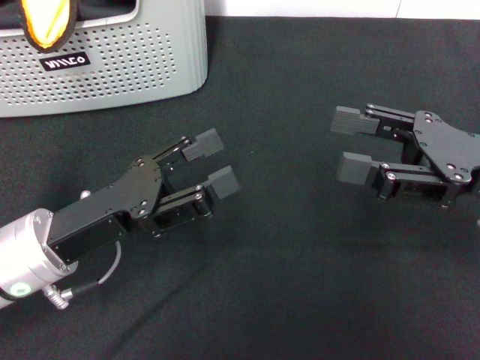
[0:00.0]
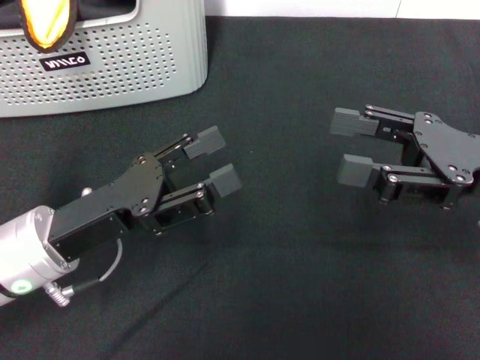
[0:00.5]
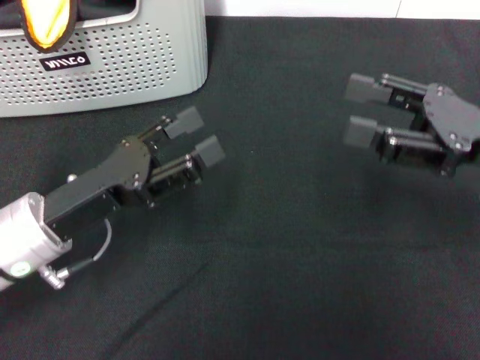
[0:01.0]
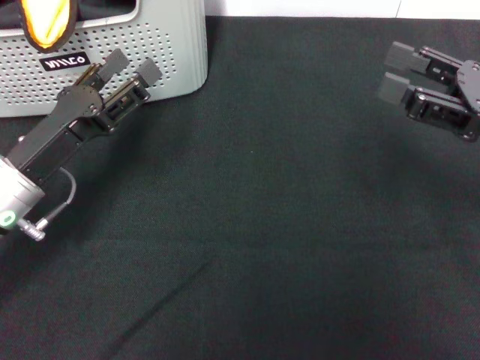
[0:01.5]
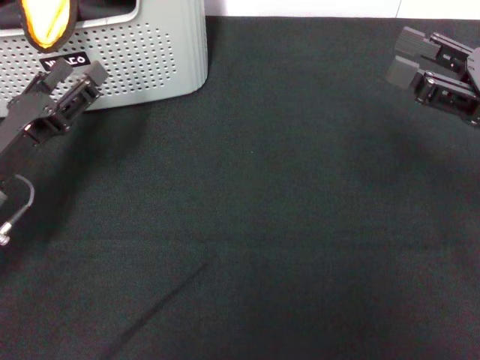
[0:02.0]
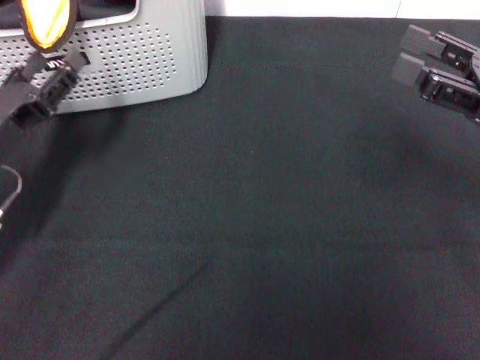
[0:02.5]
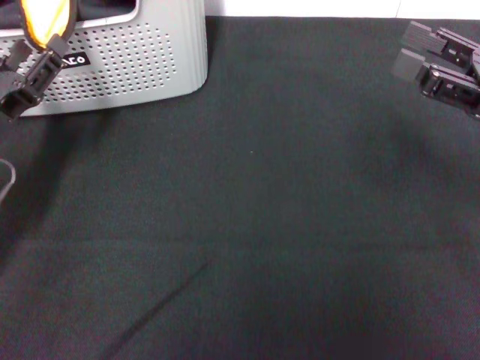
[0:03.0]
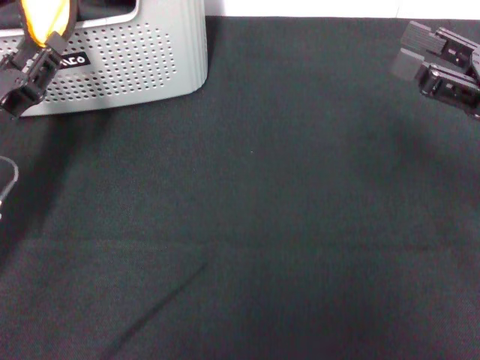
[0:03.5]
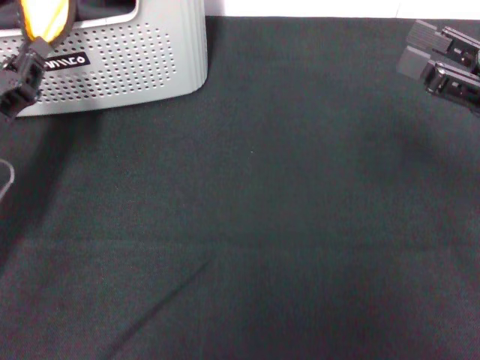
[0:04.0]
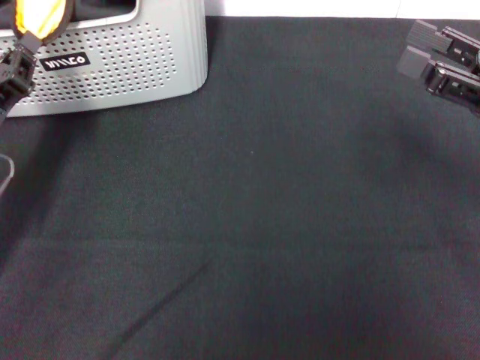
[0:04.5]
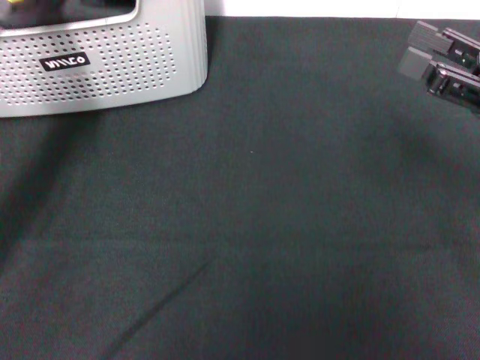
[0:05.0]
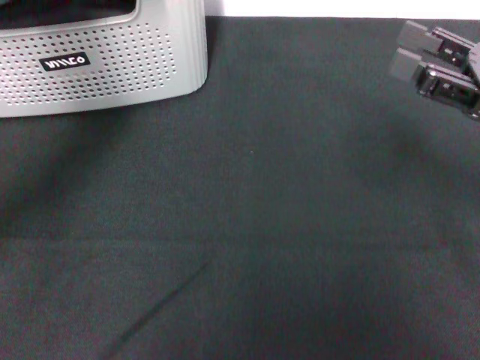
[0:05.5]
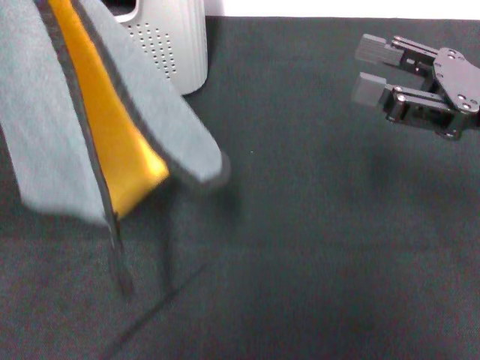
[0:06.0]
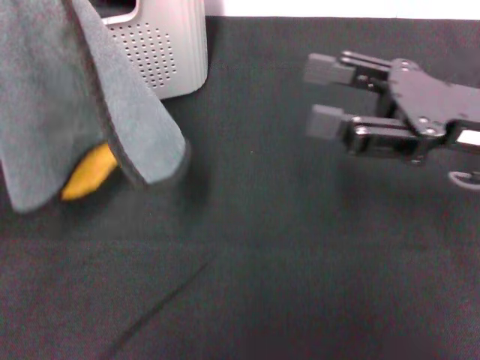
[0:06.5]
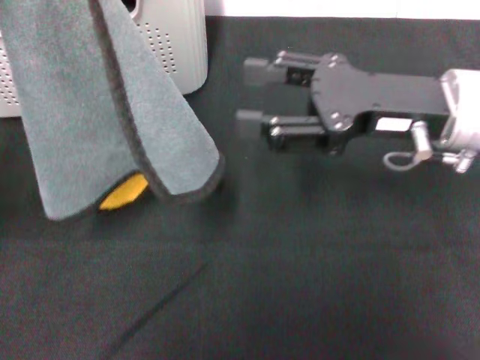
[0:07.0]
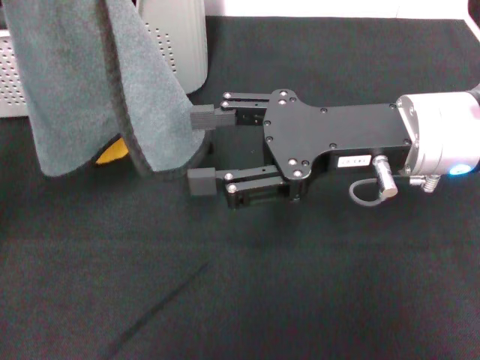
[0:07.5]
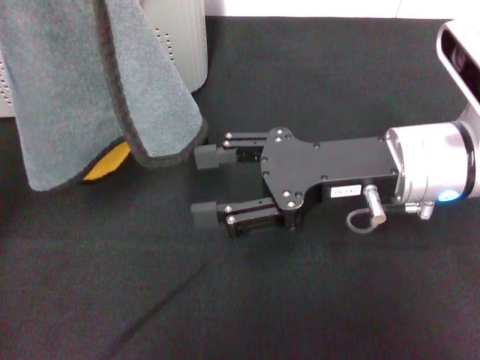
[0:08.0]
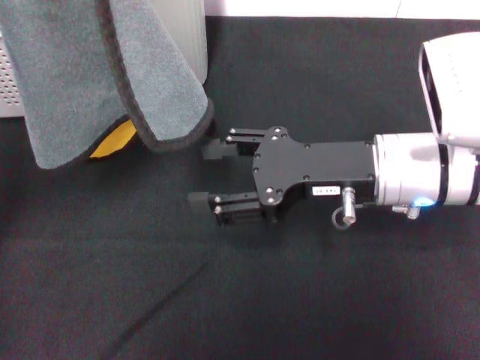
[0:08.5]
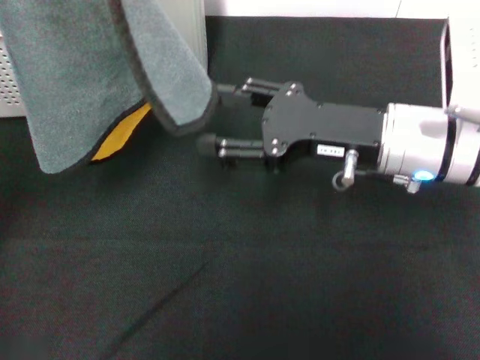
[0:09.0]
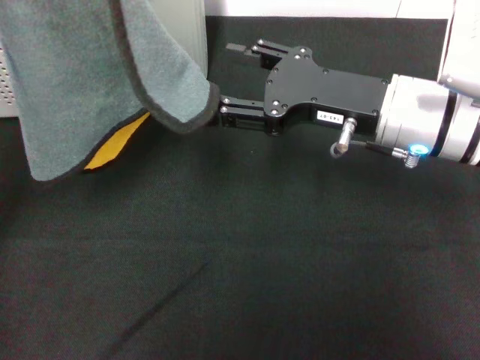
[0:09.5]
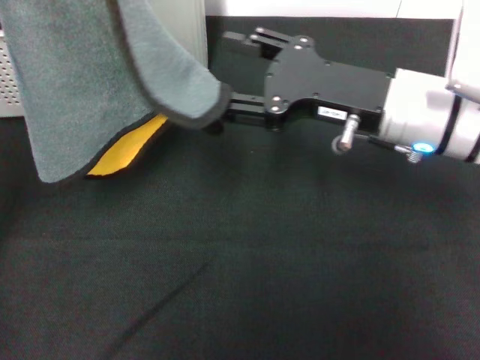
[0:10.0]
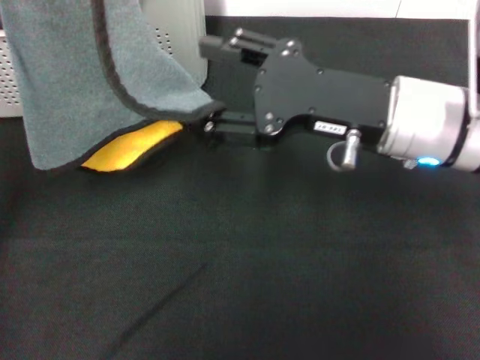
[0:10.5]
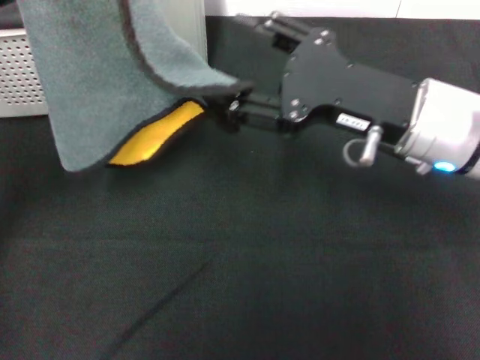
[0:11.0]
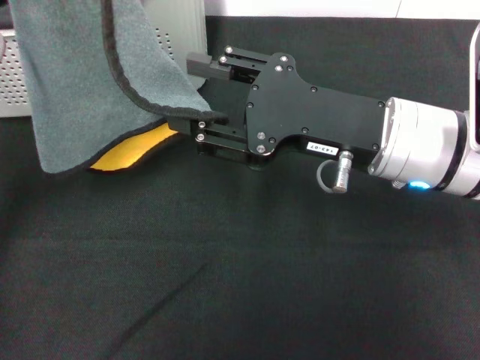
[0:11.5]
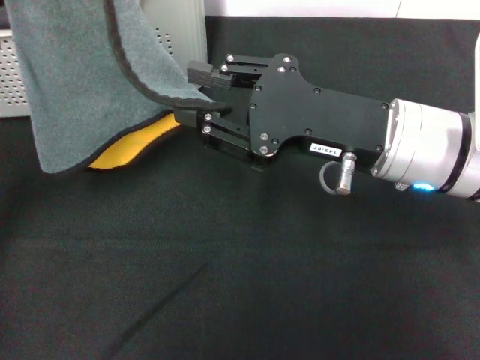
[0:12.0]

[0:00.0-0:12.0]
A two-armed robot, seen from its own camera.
Task of the whole recording: pick up the towel from the storage box and lay it flat on the black tablecloth.
Step, 0:00.0 to 0:04.0: Pick up a towel with the left gripper.
0:00.0 to 0:02.0: The left gripper shifts approximately 5 cm to the left.
0:02.0 to 0:04.0: The left gripper closes its fingers.
0:04.0 to 0:06.0: The left gripper moves upward, approximately 10 cm, and closes its fingers.
0:06.0 to 0:08.0: The right gripper moves to the left, some 10 cm.
0:10.0 to 0:12.0: The grippers move only a little.

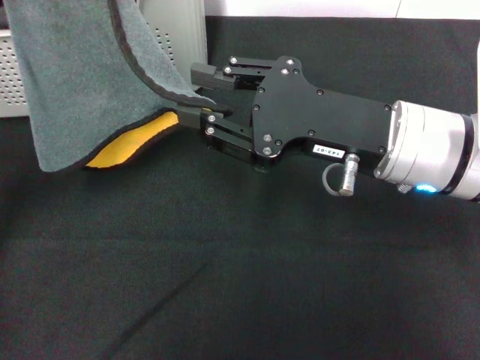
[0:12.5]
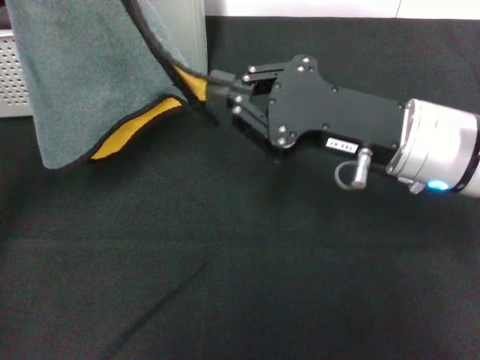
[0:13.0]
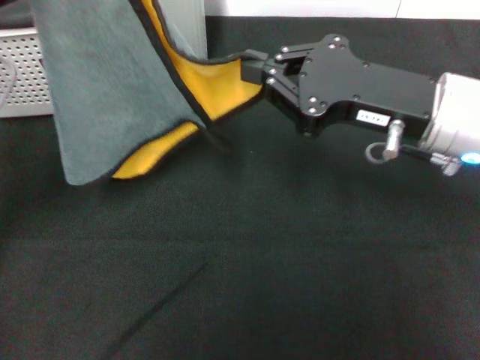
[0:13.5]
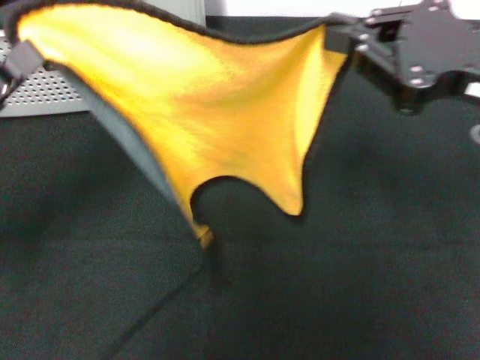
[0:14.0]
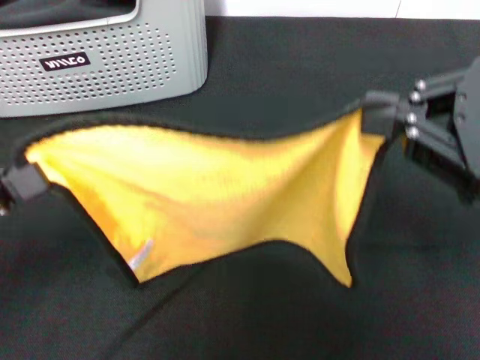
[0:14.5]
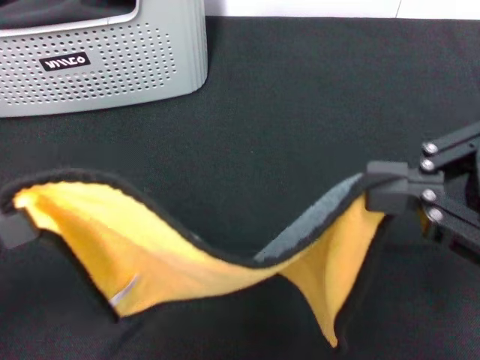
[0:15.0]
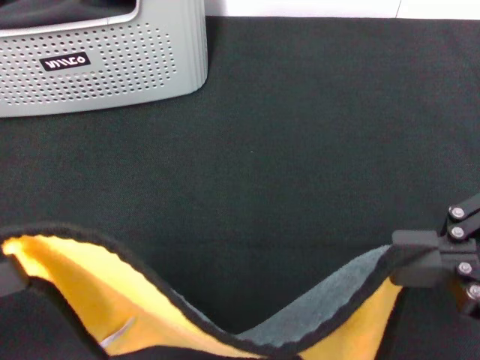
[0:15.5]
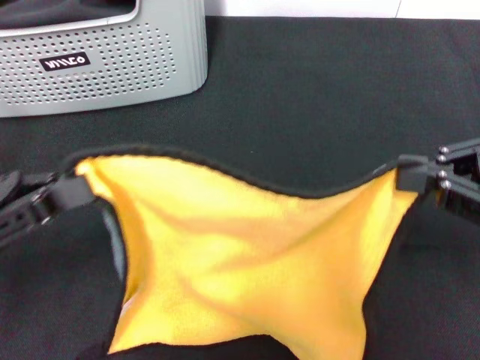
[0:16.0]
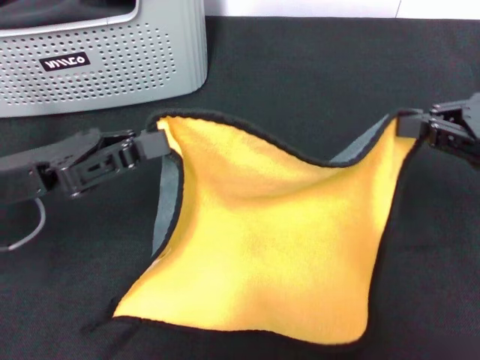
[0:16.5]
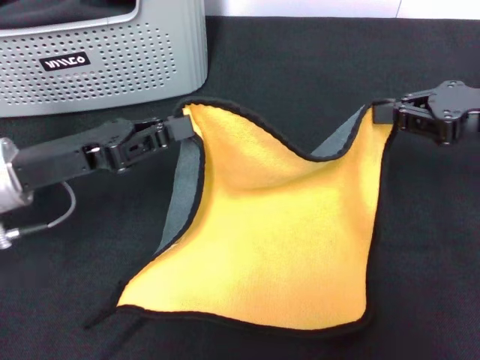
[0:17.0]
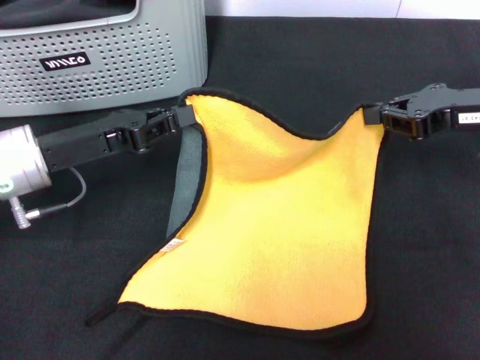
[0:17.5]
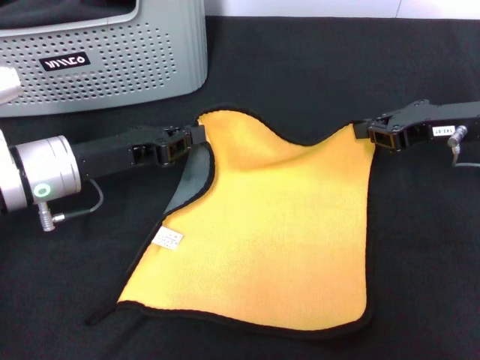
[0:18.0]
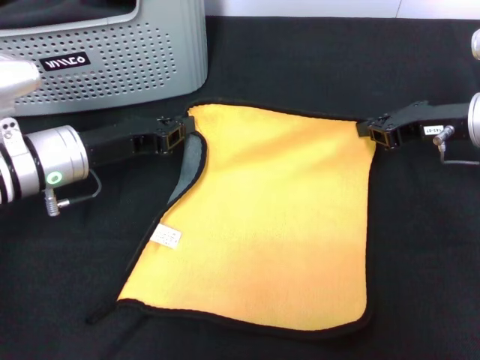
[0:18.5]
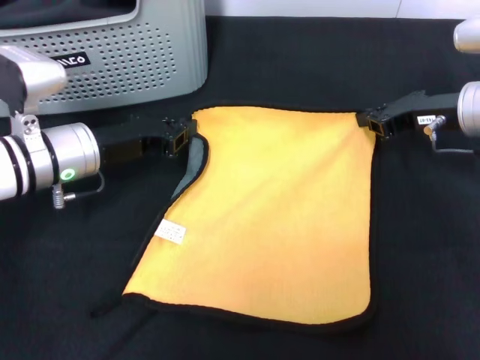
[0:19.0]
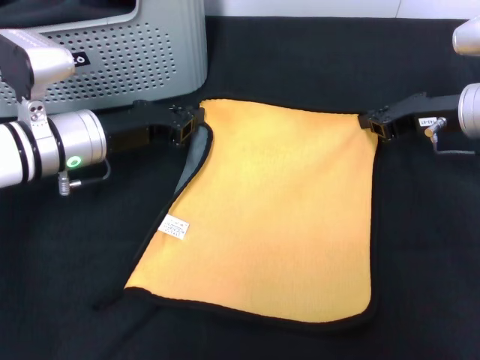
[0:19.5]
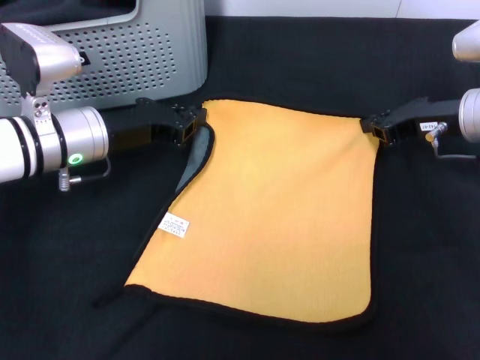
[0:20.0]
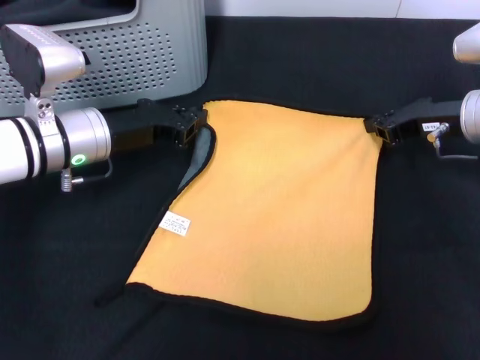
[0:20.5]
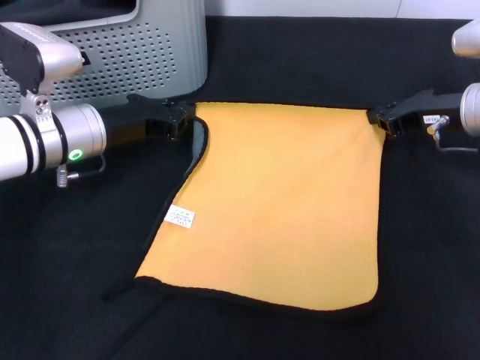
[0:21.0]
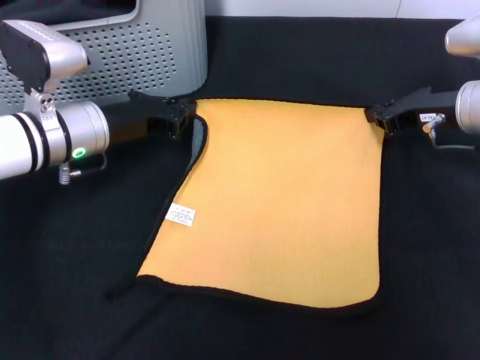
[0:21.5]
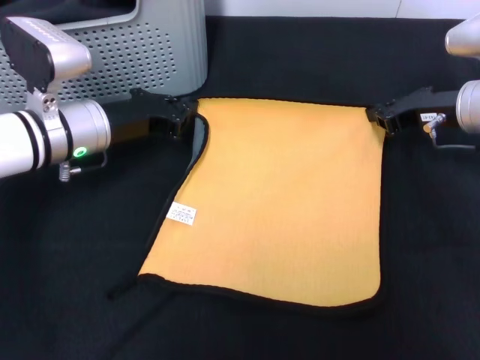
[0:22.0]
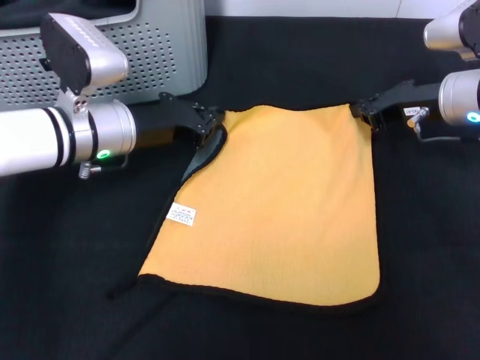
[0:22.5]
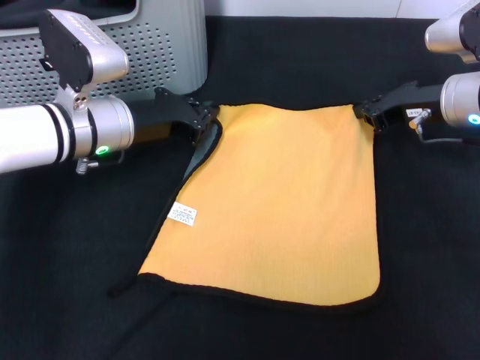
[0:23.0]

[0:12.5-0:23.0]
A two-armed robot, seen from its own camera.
Task of the whole recording: pick up the towel from the storage box and lay it flat on the black tablecloth.
0:12.5 to 0:14.5: The right gripper moves to the right, upward and backward, roughly 15 cm, and closes. The left gripper shifts about 15 cm backward and to the left.
0:14.5 to 0:16.5: The left gripper travels forward and to the right by approximately 10 cm; the right gripper moves forward and downward, roughly 10 cm.
0:16.5 to 0:19.0: The right gripper travels forward, downward and to the left by approximately 15 cm. The left gripper goes approximately 10 cm forward and downward.
0:21.0 to 0:23.0: The grippers stay close to where they were, moving slightly.

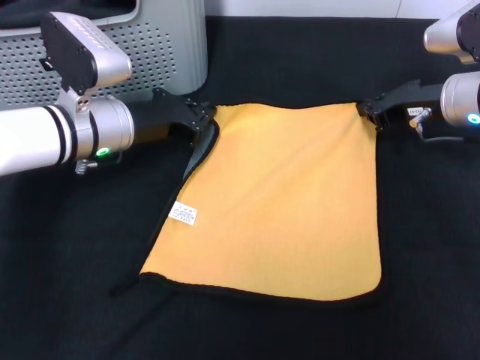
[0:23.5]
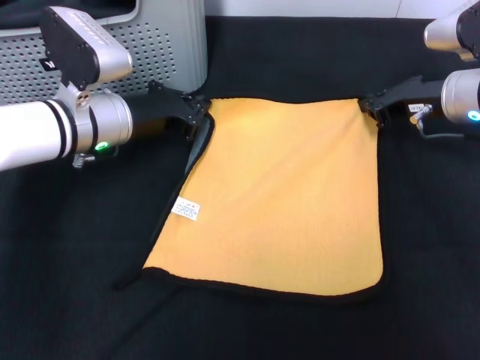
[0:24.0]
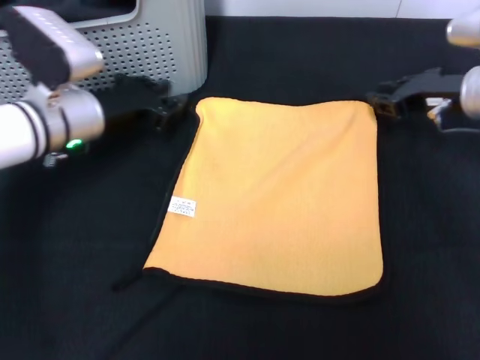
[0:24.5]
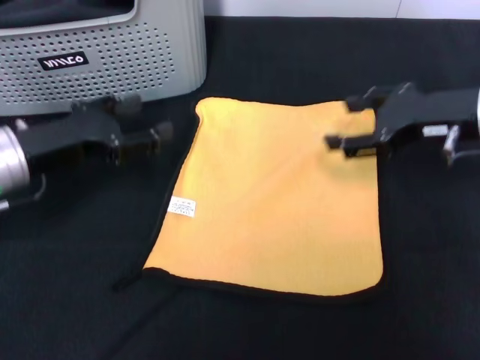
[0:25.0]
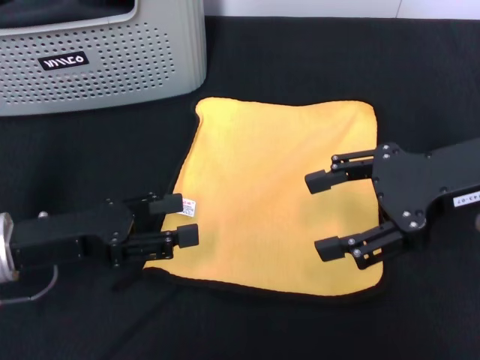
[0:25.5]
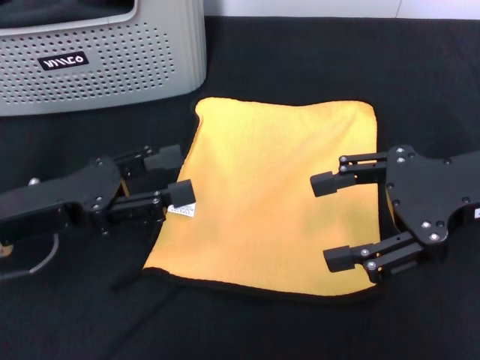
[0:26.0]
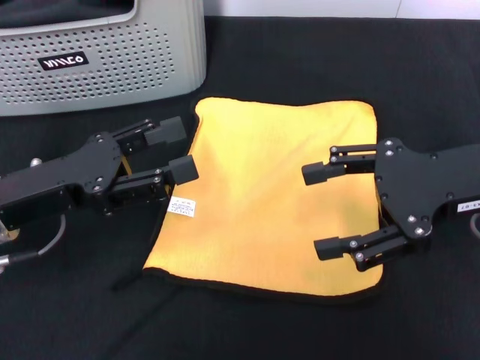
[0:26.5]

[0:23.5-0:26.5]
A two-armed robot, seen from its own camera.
Task of the whole recording: pick up the towel from the storage box and lay it flat on the black tablecloth.
0:23.5 to 0:25.0: The left gripper is displaced to the left and backward by approximately 10 cm, and opens. Meanwhile the right gripper is displaced backward and upward by some 10 cm, and opens.
0:25.0 to 0:26.5: Both grippers travel together backward, roughly 5 cm.
